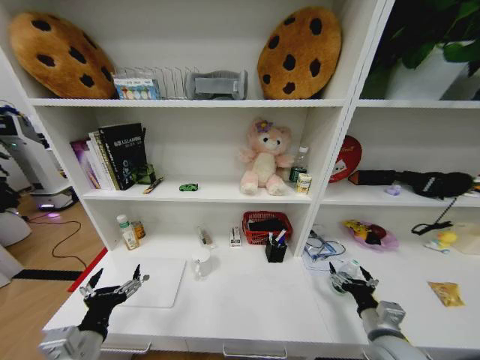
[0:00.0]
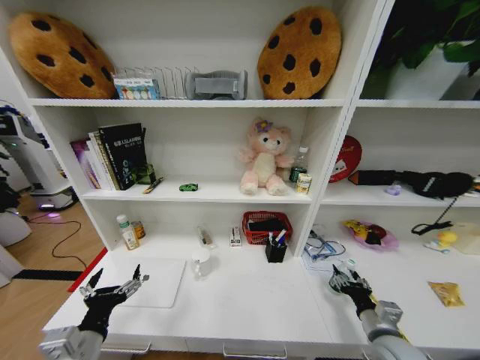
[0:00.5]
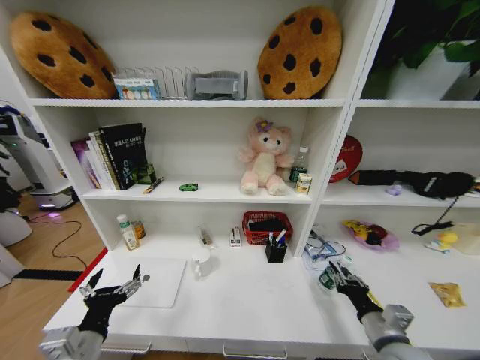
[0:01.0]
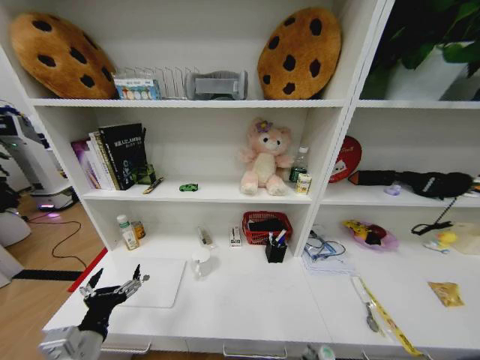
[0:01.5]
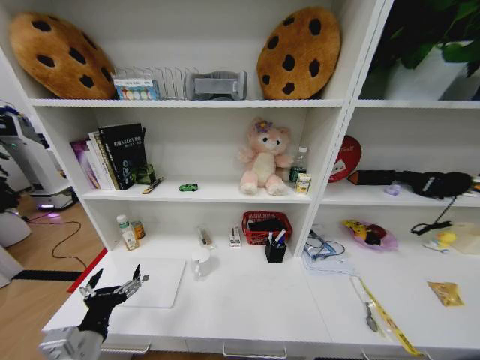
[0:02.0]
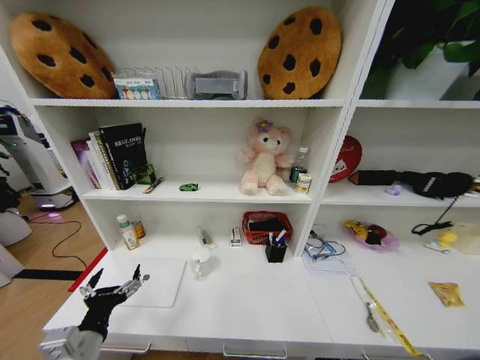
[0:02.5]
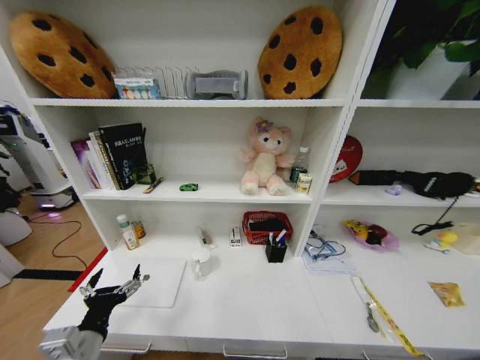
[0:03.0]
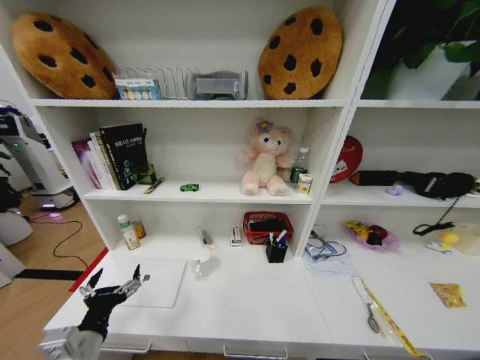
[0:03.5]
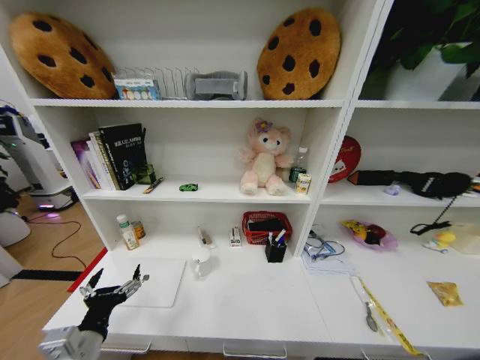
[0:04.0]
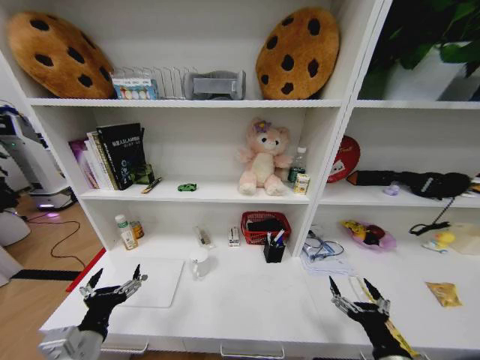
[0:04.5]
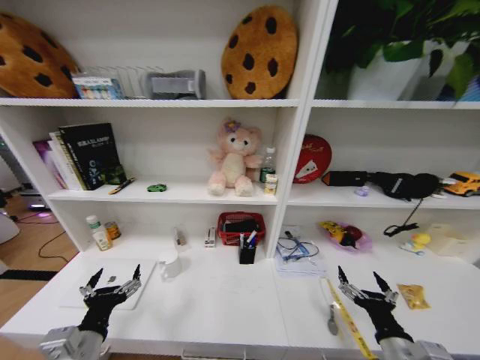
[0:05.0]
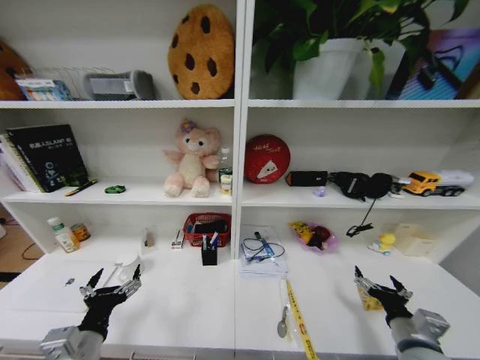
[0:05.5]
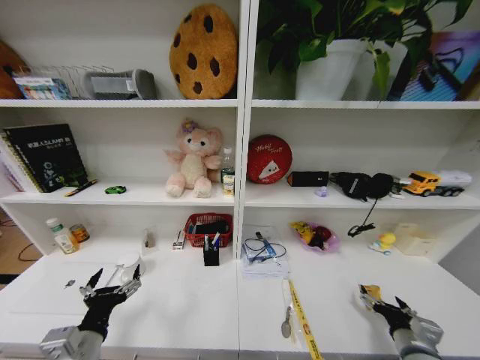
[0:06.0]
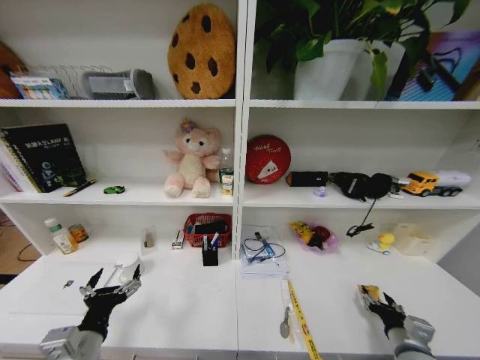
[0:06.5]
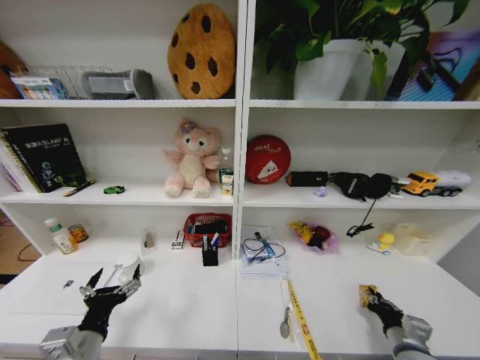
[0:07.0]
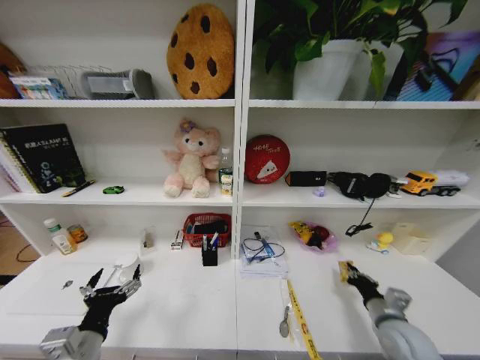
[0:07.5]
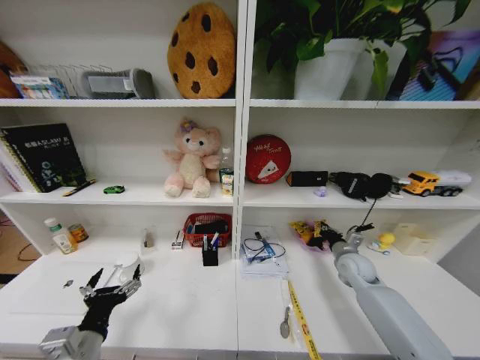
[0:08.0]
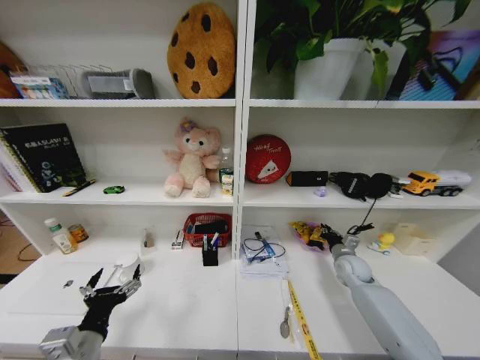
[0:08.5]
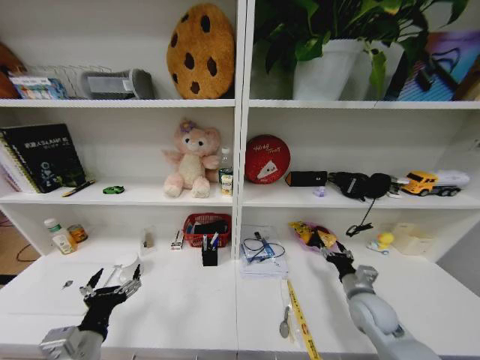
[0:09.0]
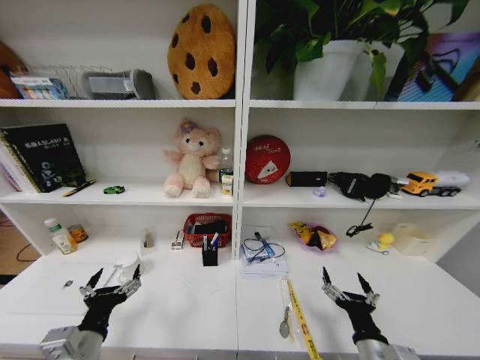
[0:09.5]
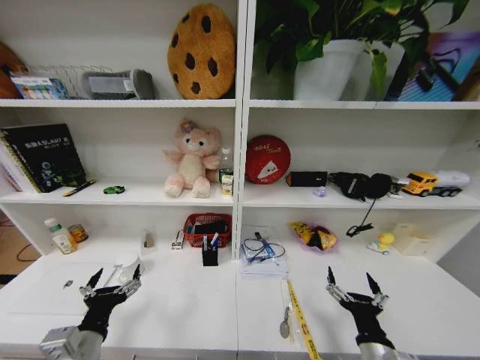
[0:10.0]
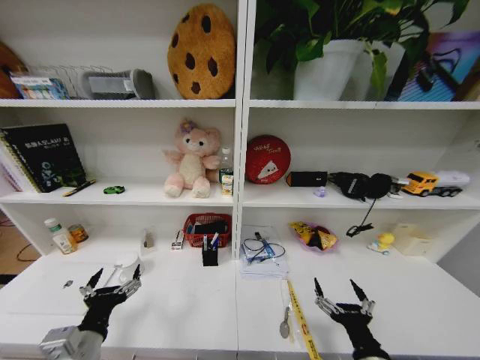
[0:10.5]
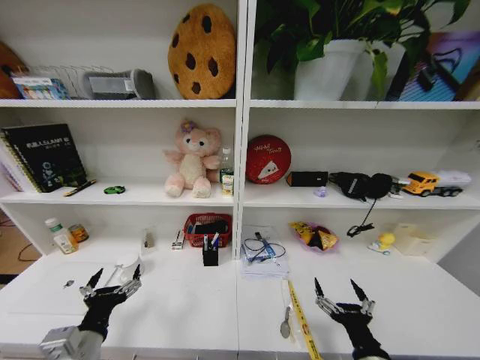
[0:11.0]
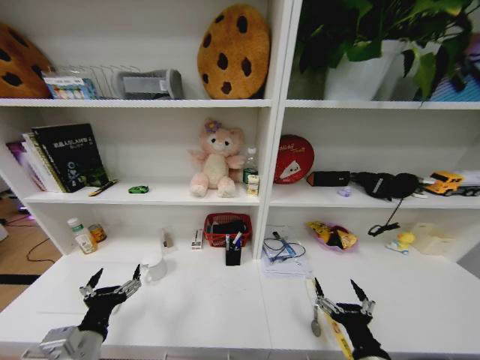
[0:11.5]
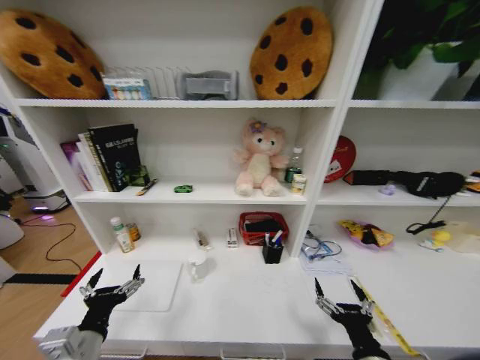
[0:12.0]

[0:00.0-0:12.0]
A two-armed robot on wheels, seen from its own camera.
Task of the whole recording: Organize the objects on the table.
0:00.0 to 0:02.0: The right gripper goes some 35 cm backward, downward and to the right, and closes its fingers.
0:04.0 to 0:06.0: The right gripper heads forward, to the right and upward, covering some 25 cm.
0:06.0 to 0:08.0: The right gripper moves forward, roughly 25 cm, and closes its fingers.
0:08.0 to 0:10.0: The right gripper travels backward by some 30 cm, and opens.

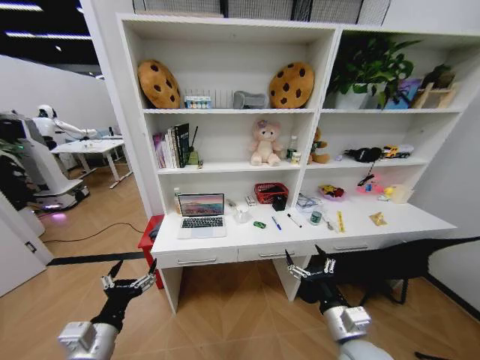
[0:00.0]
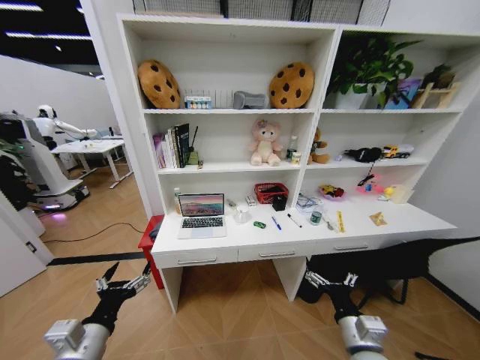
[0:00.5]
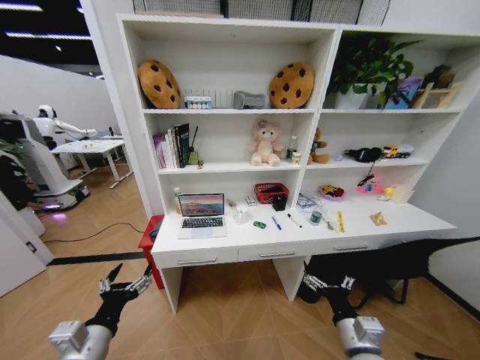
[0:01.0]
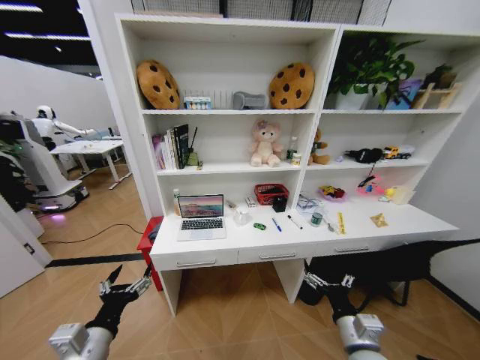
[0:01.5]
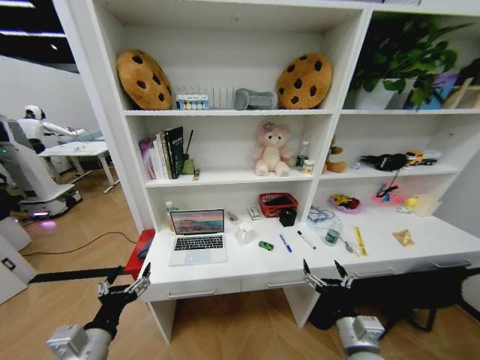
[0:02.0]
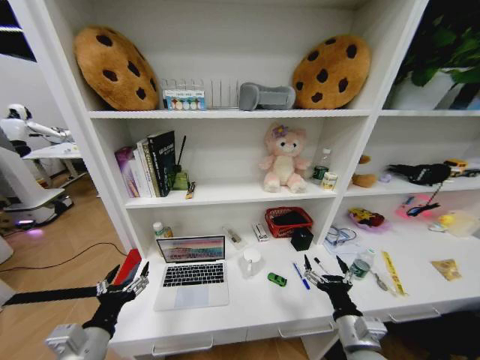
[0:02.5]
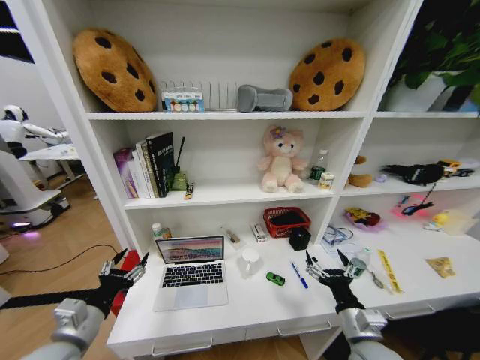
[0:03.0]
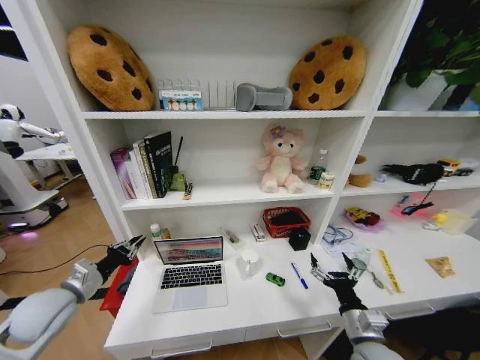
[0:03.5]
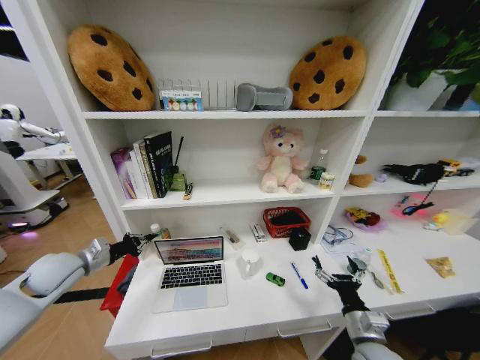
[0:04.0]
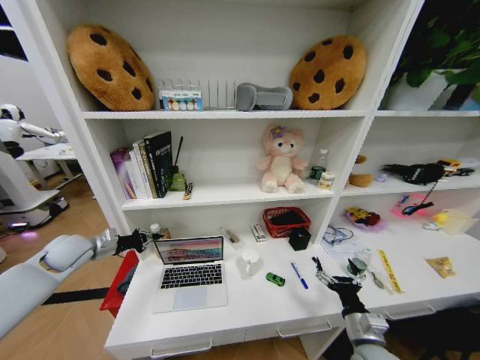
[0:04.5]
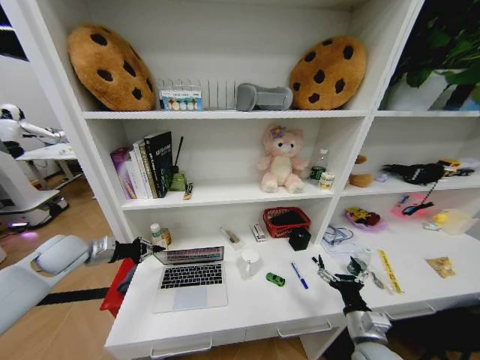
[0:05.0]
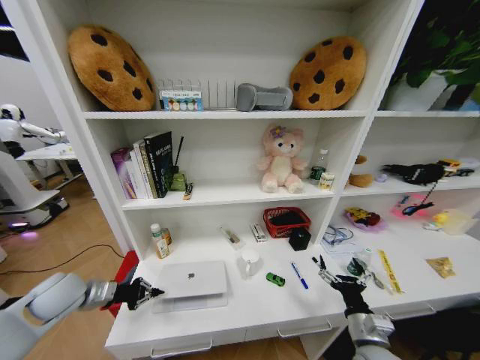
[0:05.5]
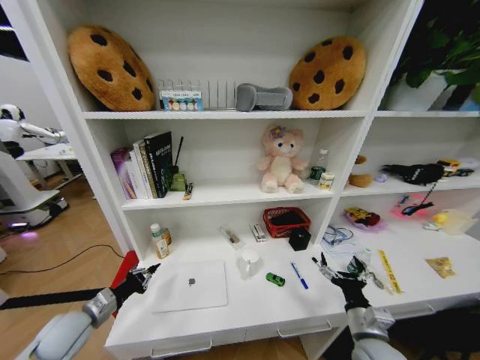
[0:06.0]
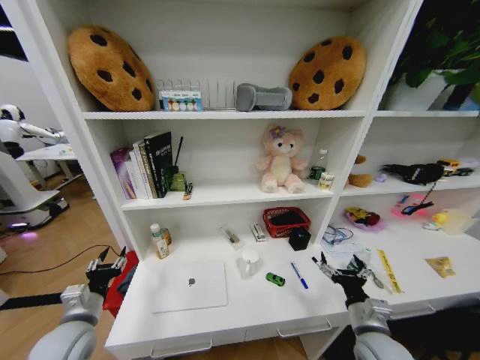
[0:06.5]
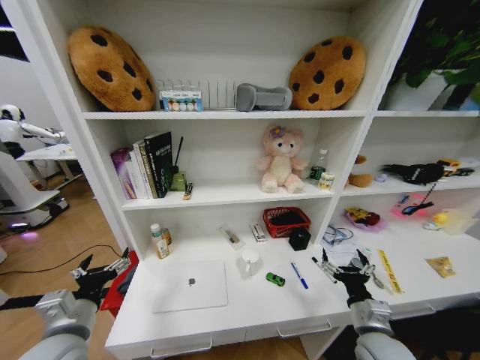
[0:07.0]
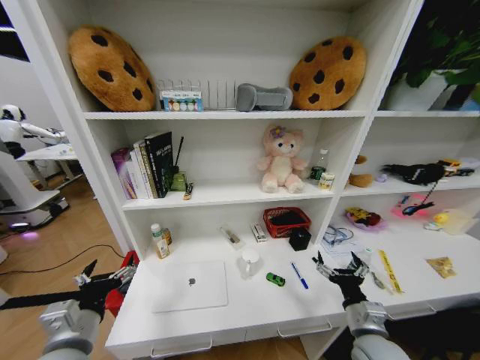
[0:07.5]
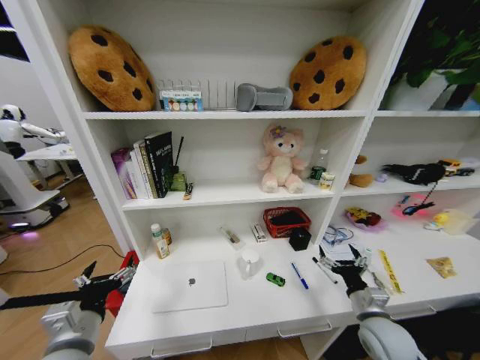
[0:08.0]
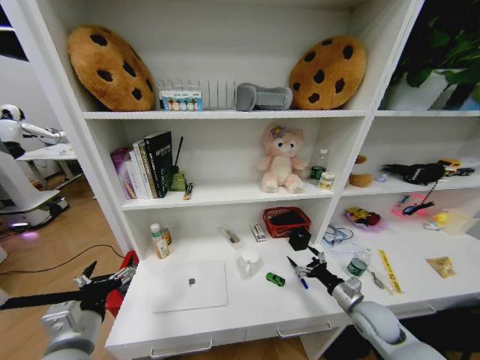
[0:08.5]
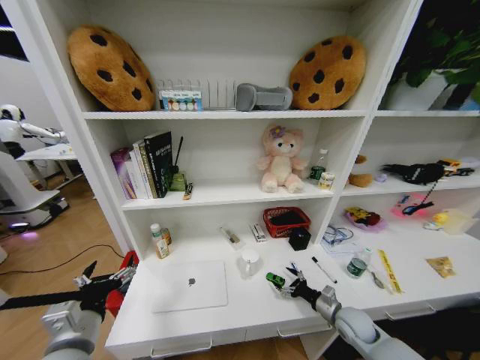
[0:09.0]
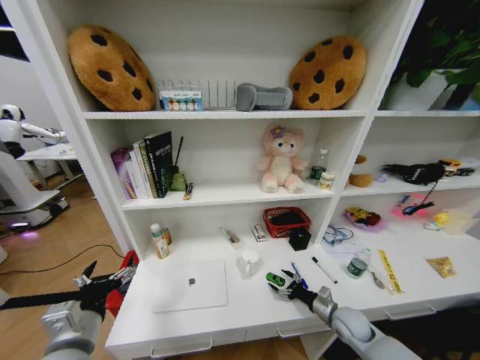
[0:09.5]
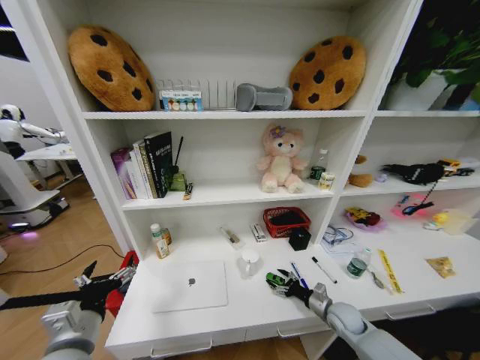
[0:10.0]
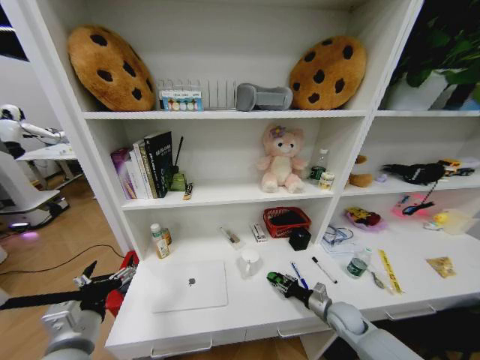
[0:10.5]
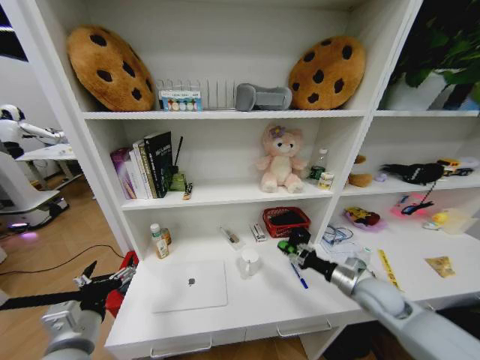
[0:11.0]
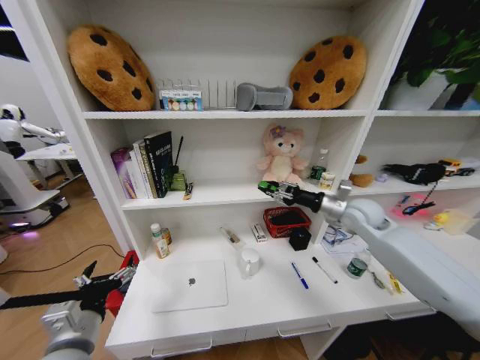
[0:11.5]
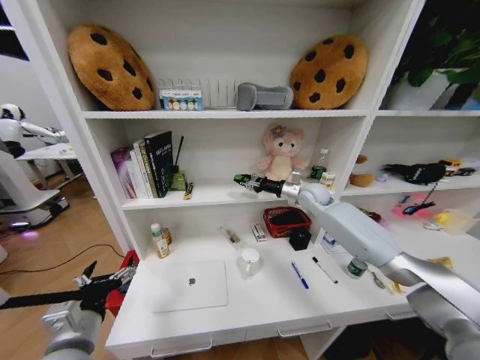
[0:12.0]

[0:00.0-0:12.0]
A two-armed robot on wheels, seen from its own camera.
Task of the whole recording: Organize the objects on the table.
0:02.0 to 0:04.0: The right gripper shifts by some 5 cm, while the left gripper shifts about 25 cm forward and to the left, and closes up.
0:04.0 to 0:06.0: The left gripper heads downward and backward, covering about 15 cm.
0:06.0 to 0:08.0: The right gripper shifts by approximately 5 cm; the left gripper moves to the right, upward and backward, about 15 cm, and opens up.
0:08.0 to 0:10.0: The right gripper goes roughly 15 cm downward and forward.
0:10.0 to 0:12.0: The right gripper heads upward and forward, covering some 40 cm, and closes.

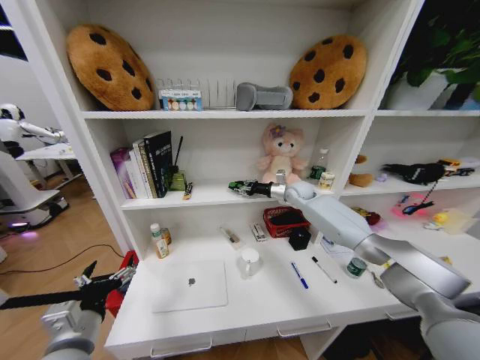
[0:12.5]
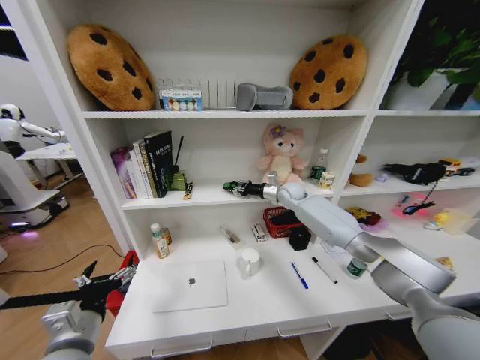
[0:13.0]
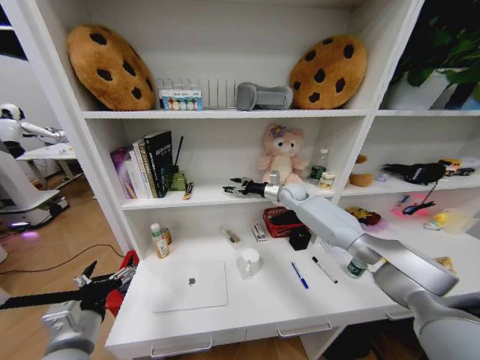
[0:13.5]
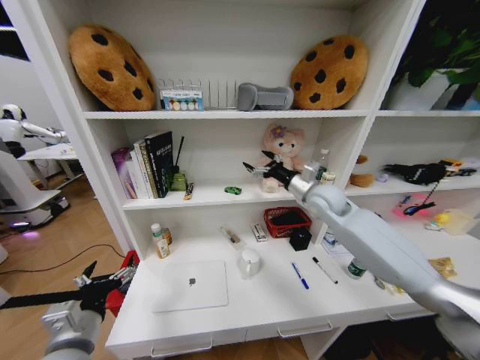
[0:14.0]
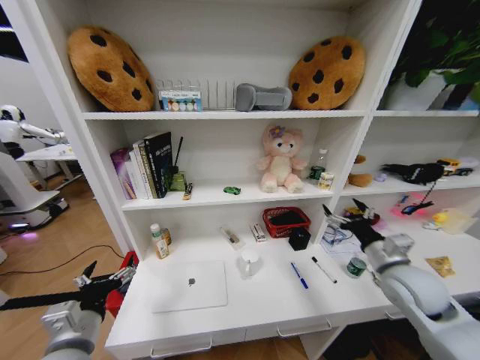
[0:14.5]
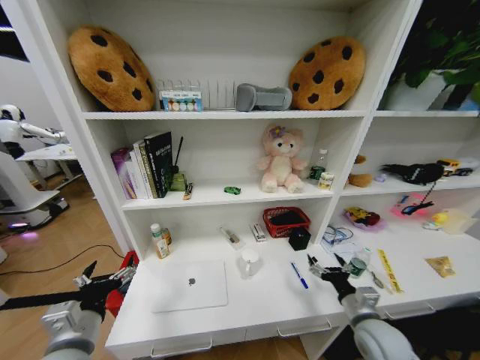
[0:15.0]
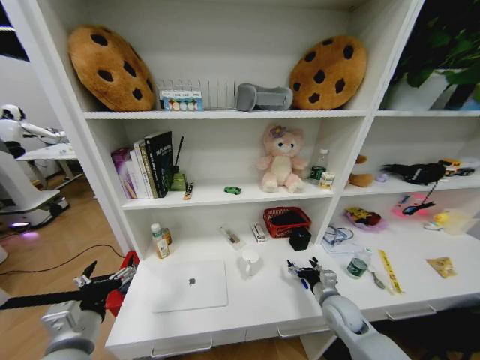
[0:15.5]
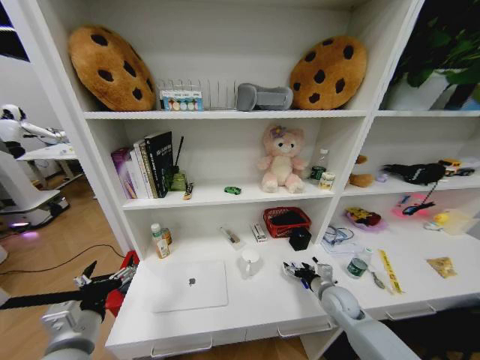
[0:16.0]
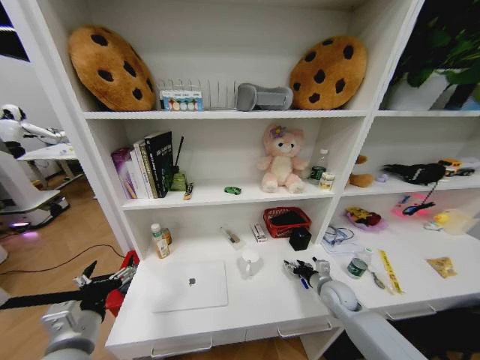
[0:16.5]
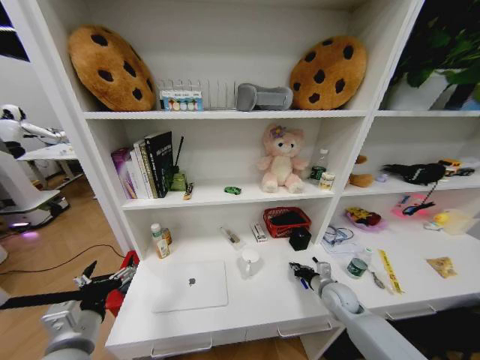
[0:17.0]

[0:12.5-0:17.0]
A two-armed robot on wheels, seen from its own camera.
Task of the whole recording: Organize the objects on the table.
0:12.5 to 0:14.5: The right gripper shifts approximately 35 cm backward, and opens its fingers.
0:14.5 to 0:17.0: The right gripper goes approximately 20 cm downward, and closes up.
